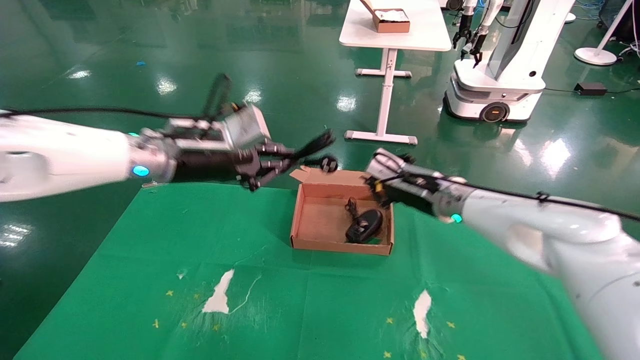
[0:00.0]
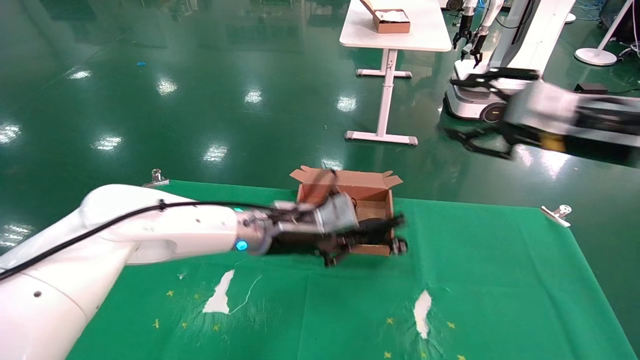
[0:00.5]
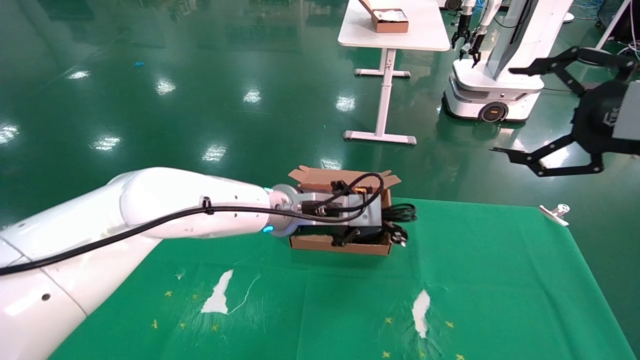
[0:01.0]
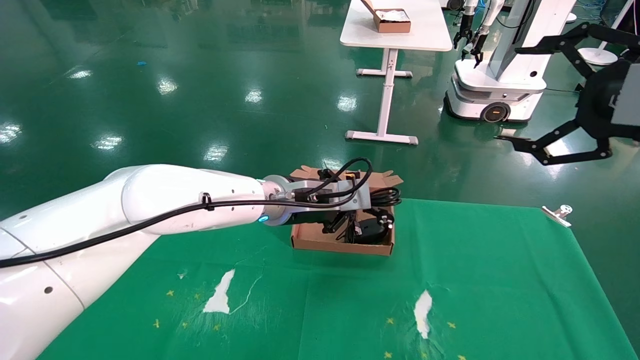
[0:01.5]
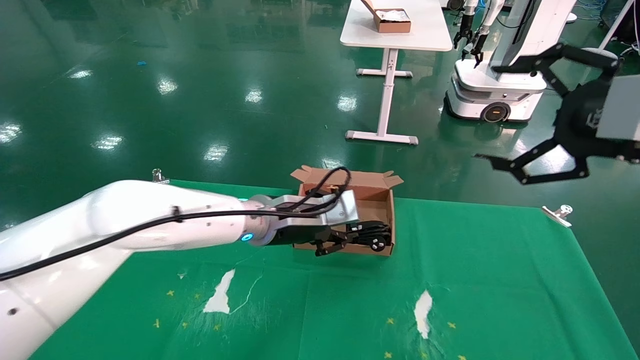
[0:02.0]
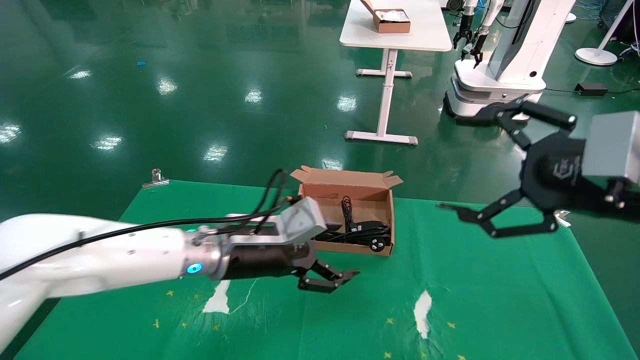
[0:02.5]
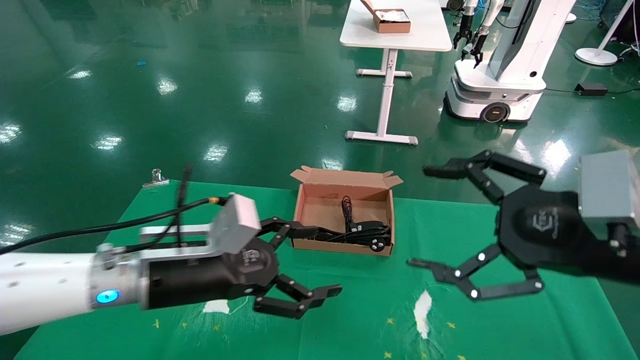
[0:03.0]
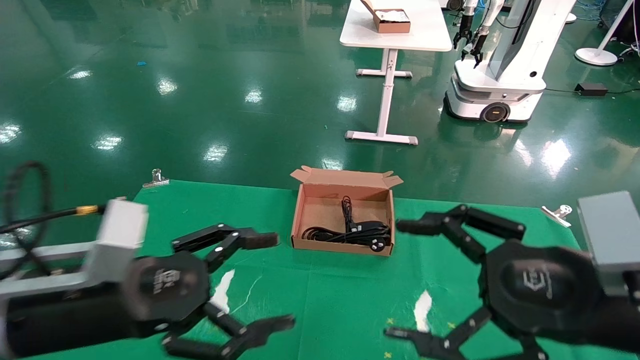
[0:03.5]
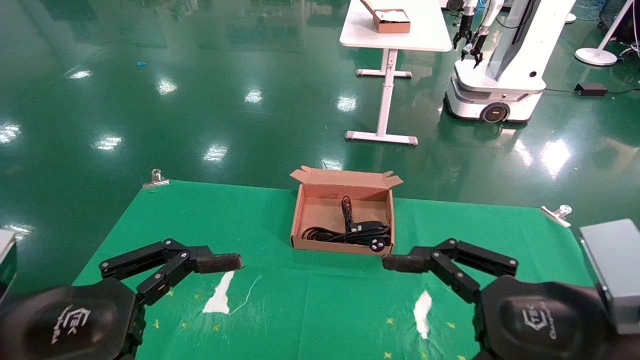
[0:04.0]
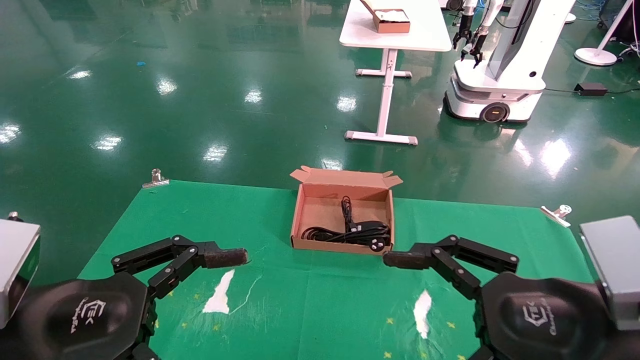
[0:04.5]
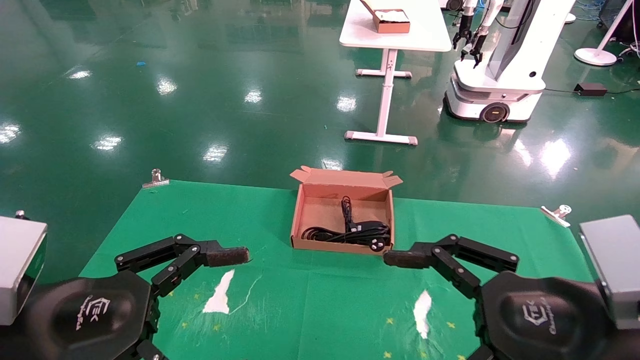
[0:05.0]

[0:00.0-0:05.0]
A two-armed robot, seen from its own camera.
Step, 0:00.0 to 0:02.0: Place the mouse and power cord into the box.
0:00.0 to 0:02.5: The right gripper moves backward and to the right, some 25 cm, and opens up; the left gripper shifts some 15 cm downward, to the right and backward, and opens up.
0:02.5 to 0:05.0: The left gripper is displaced backward and to the left by approximately 25 cm; the right gripper shifts some 10 cm downward, to the left and backward.
